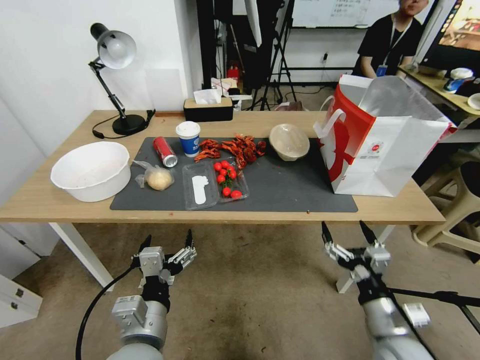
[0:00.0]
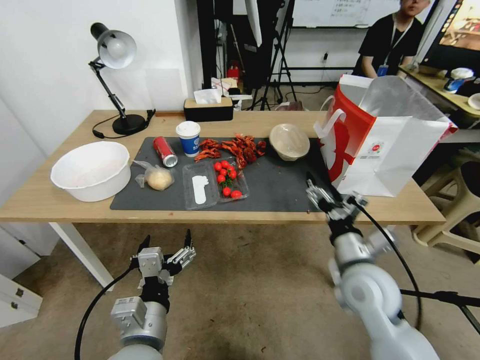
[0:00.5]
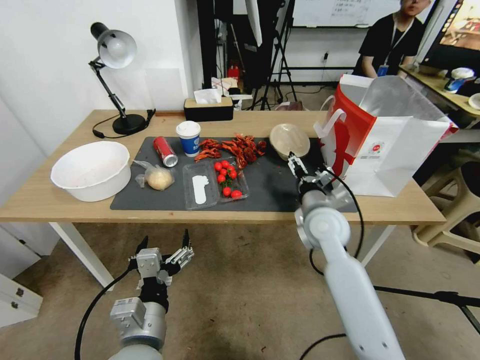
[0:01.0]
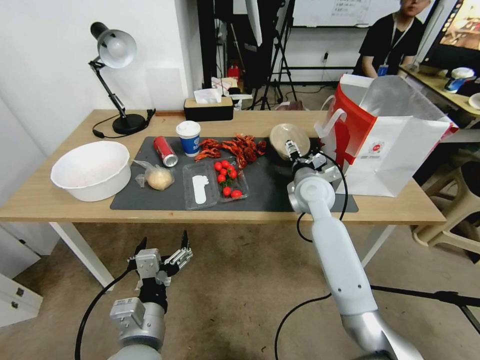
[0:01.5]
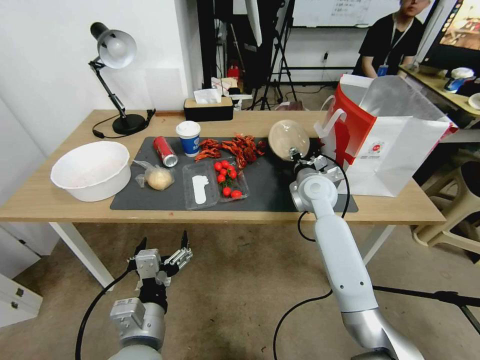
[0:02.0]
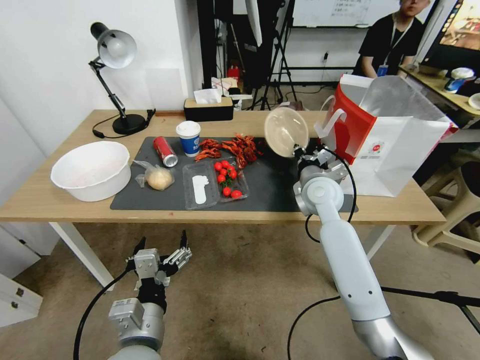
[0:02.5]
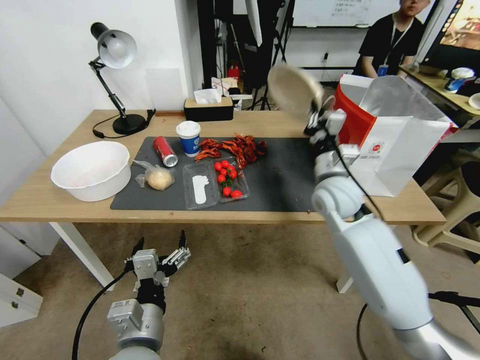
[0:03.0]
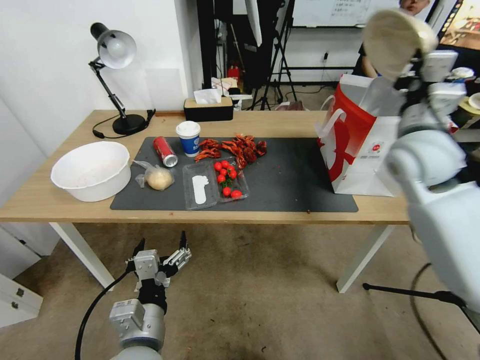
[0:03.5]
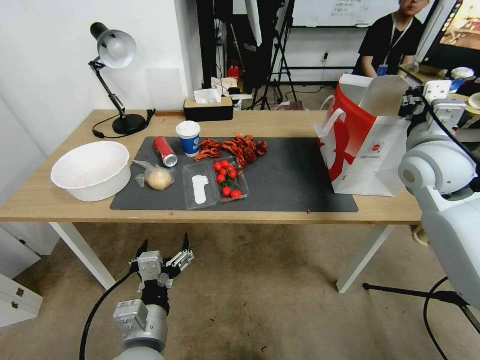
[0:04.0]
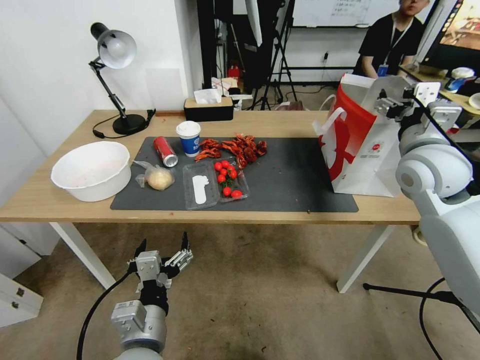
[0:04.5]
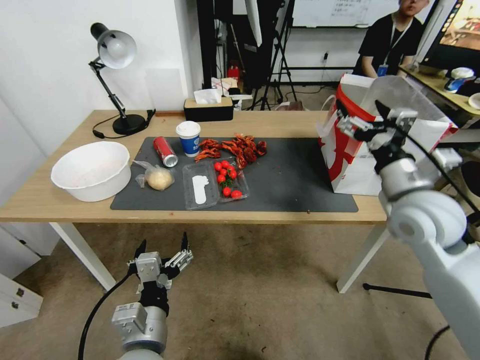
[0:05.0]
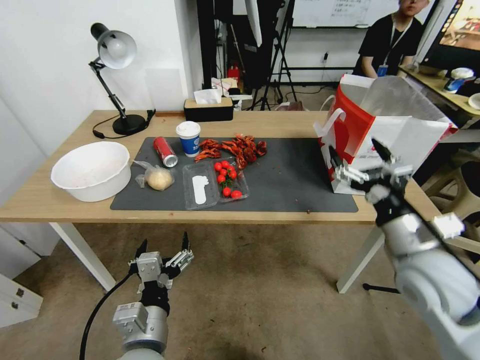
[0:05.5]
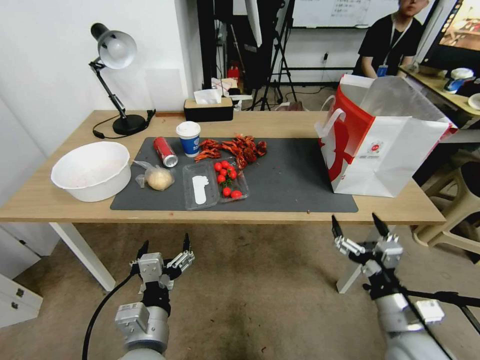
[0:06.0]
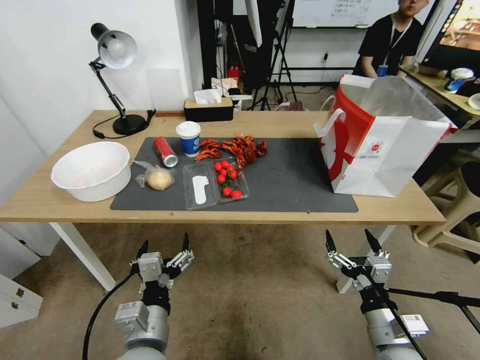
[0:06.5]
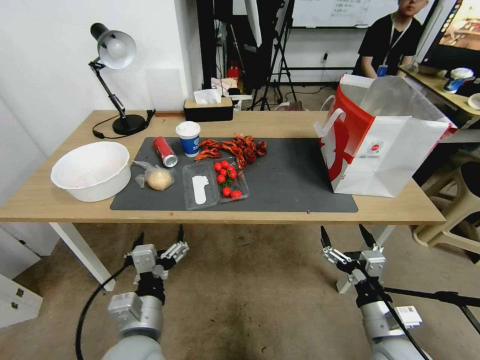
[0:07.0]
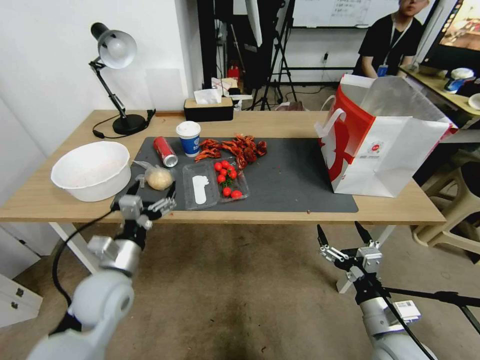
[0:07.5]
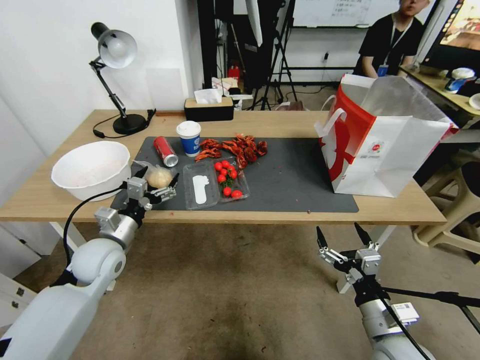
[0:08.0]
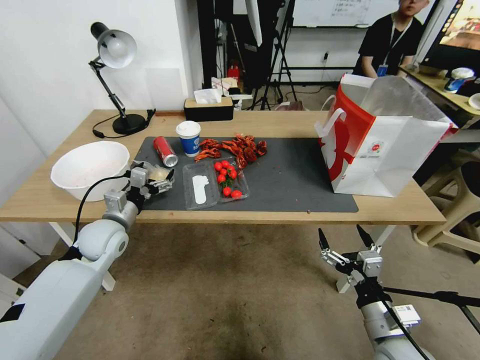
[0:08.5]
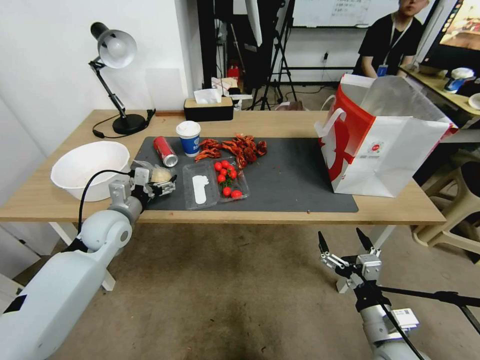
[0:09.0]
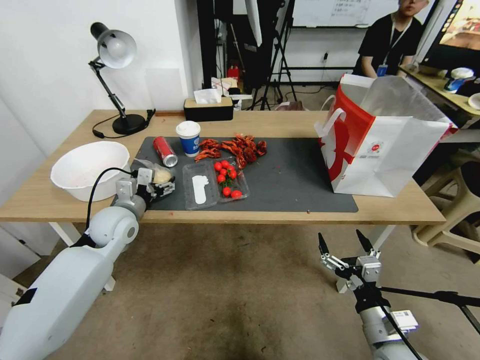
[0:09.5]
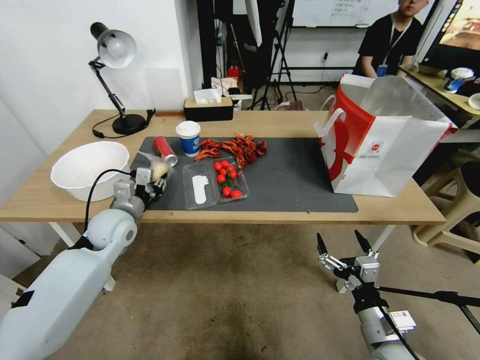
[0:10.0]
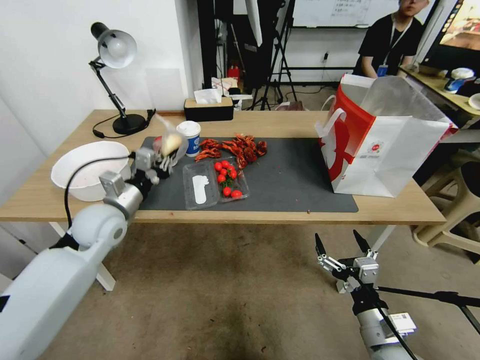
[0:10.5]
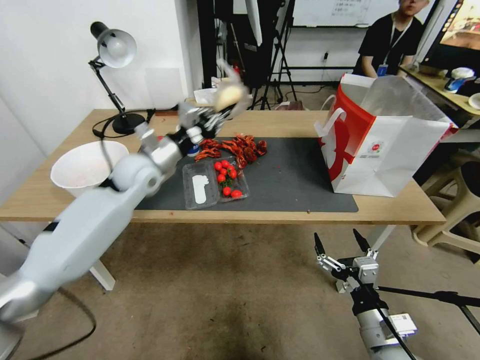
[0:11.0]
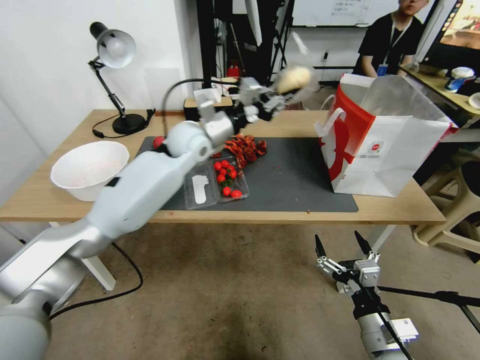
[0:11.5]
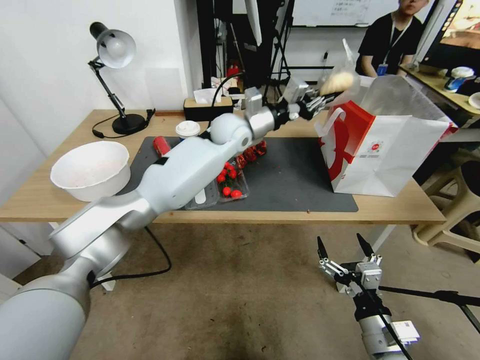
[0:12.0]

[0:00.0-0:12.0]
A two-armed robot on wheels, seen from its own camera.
0:00.0 to 0:02.0: The right gripper heads forward, covering roughly 35 cm, and closes up.
0:02.0 to 0:04.0: The right gripper is displaced upward, to the right and backward by approximately 25 cm.
0:04.0 to 0:06.0: The right gripper shifts some 35 cm downward and backward, and opens its fingers.
0:06.0 to 0:08.0: The left gripper heads forward and to the left, covering some 25 cm.
0:08.0 to 0:10.0: The left gripper moves forward, some 5 cm, and closes its fingers.
0:10.0 to 0:12.0: The left gripper shifts about 35 cm to the right, forward and upward.

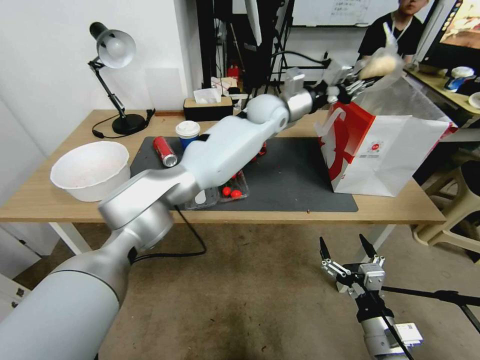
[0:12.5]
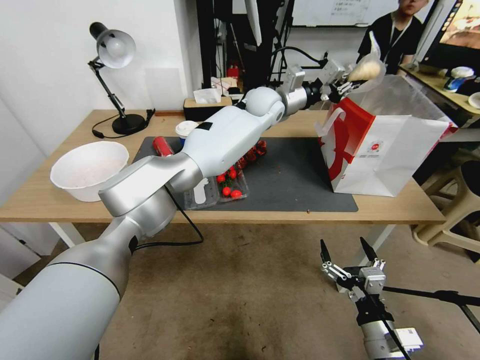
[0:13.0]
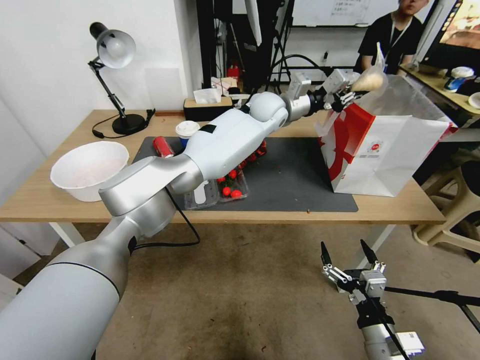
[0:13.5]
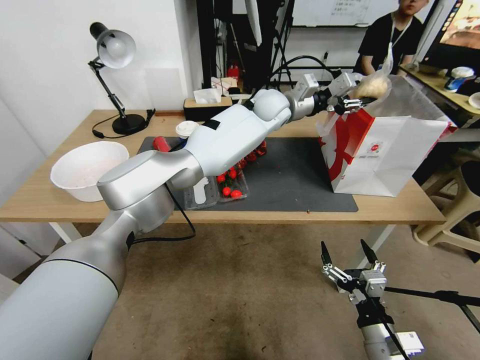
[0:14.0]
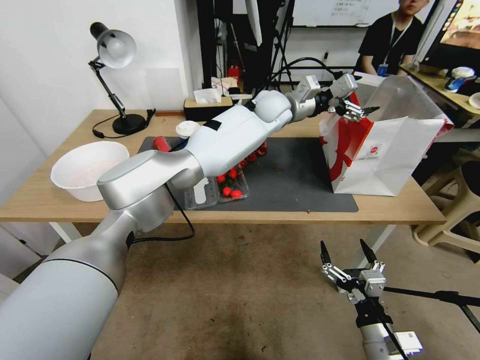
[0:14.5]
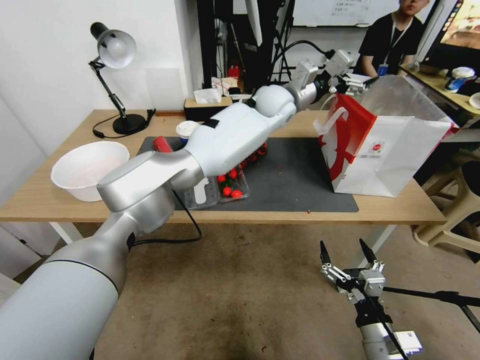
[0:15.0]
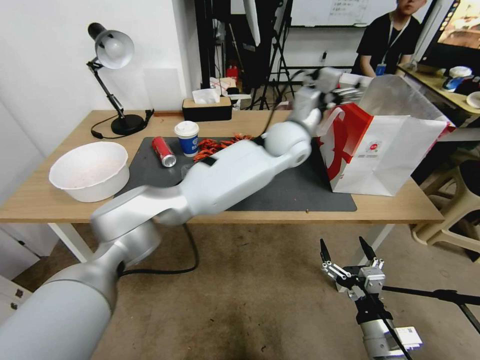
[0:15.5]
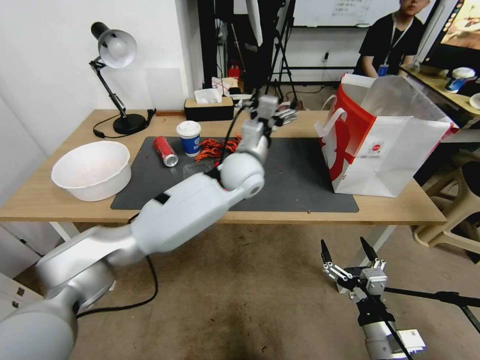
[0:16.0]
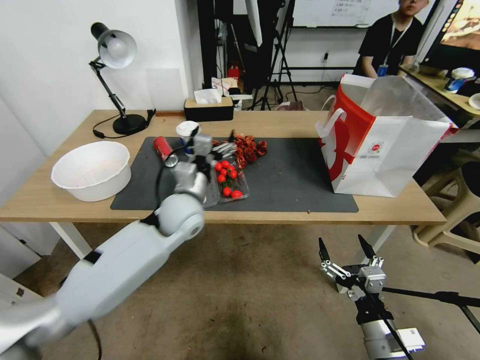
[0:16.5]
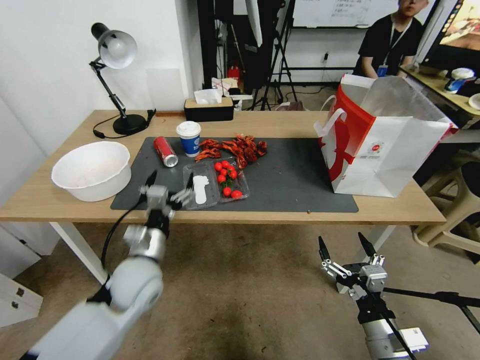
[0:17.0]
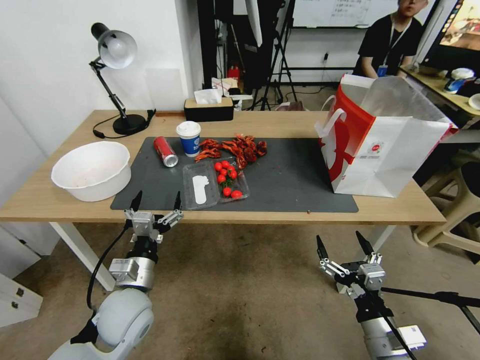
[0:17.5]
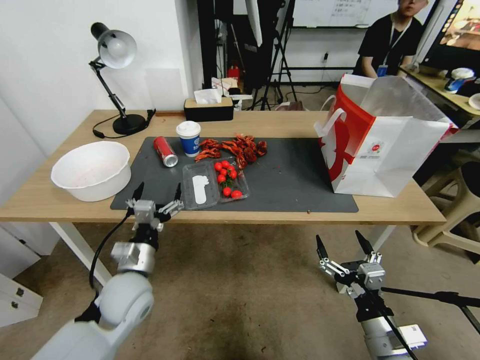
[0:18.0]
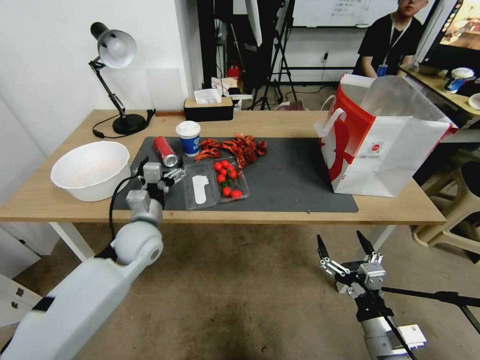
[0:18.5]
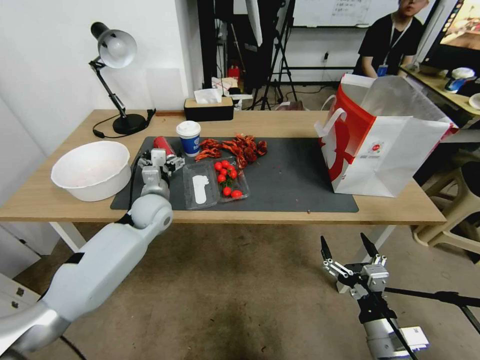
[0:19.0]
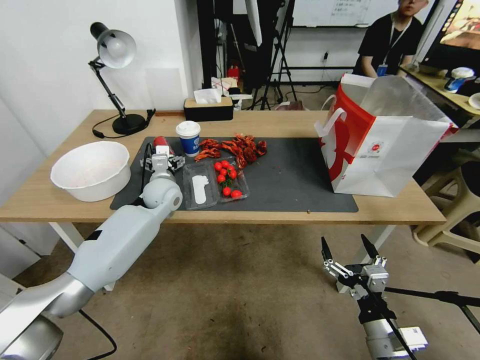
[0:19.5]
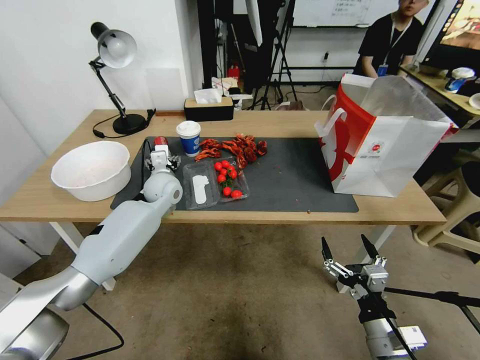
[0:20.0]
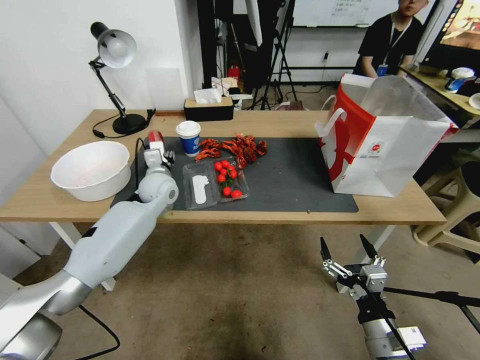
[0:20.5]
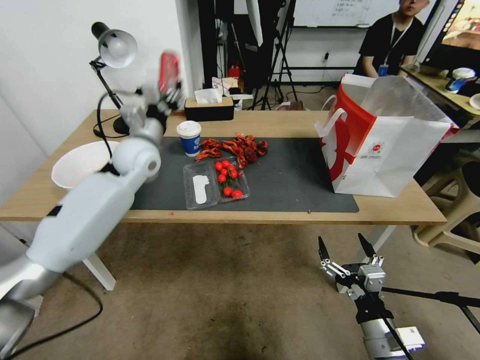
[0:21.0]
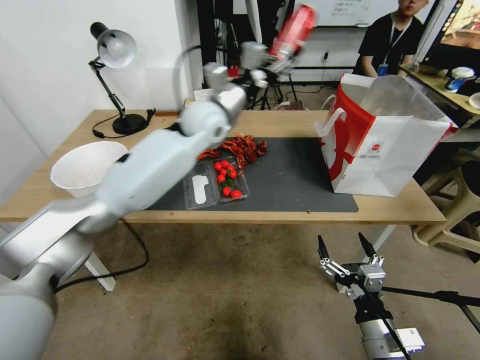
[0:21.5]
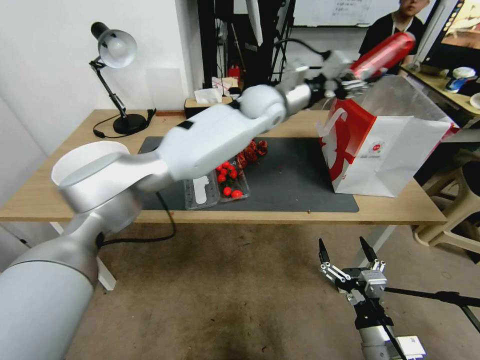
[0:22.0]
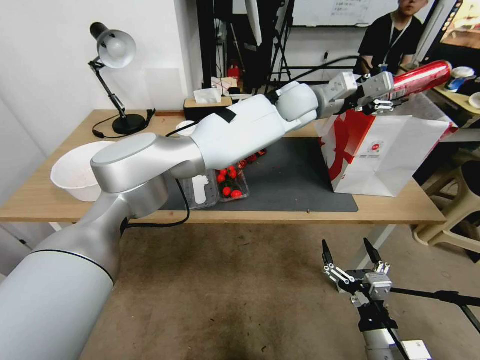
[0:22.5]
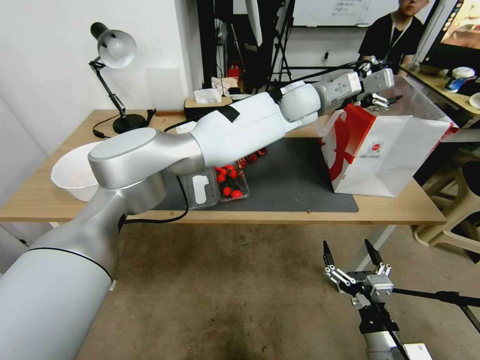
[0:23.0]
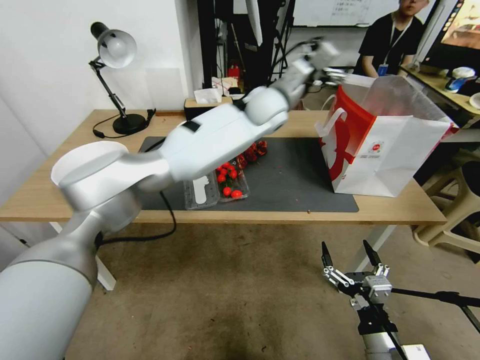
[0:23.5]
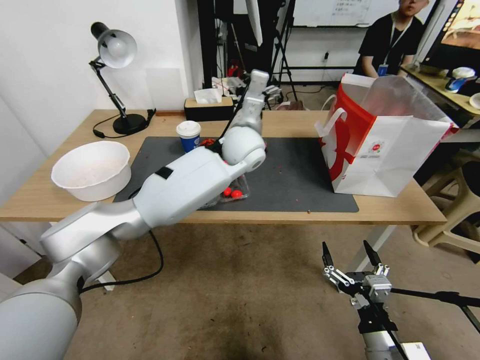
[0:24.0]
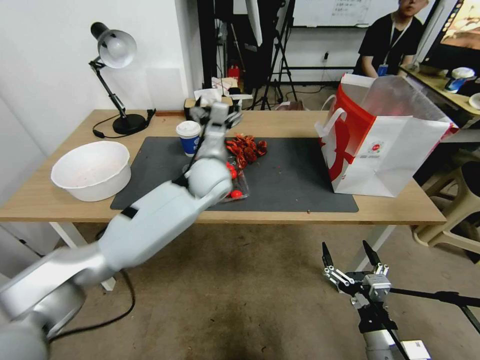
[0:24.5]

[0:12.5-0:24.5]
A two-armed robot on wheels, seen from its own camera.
0:12.5 to 0:14.5: The left gripper travels to the right by about 5 cm, and opens.
0:14.5 to 0:16.5: The left gripper goes some 30 cm backward, to the left and downward.
0:16.5 to 0:18.5: The left gripper goes approximately 15 cm to the left, backward and downward.
0:18.5 to 0:20.5: The left gripper heads forward, covering some 20 cm, and closes its fingers.
0:20.5 to 0:22.5: The left gripper moves to the right and upward, roughly 40 cm.
0:22.5 to 0:24.5: The left gripper is displaced to the left, downward and backward by about 15 cm, and opens its fingers.

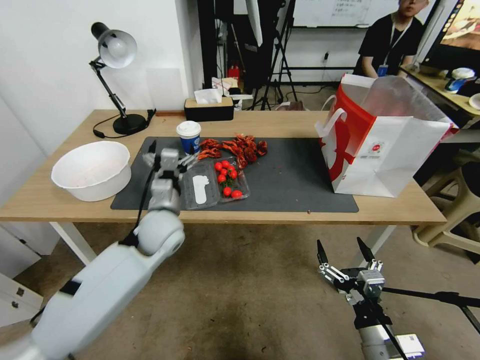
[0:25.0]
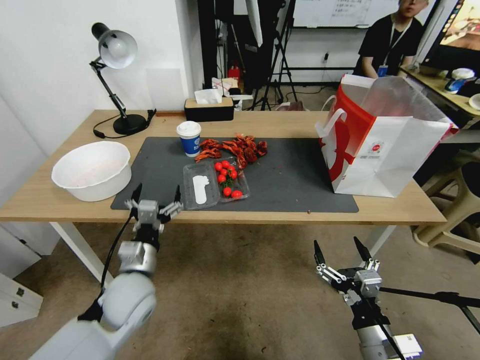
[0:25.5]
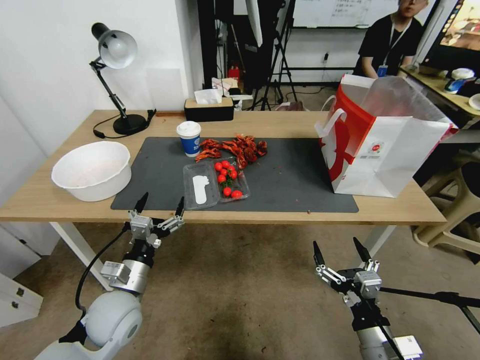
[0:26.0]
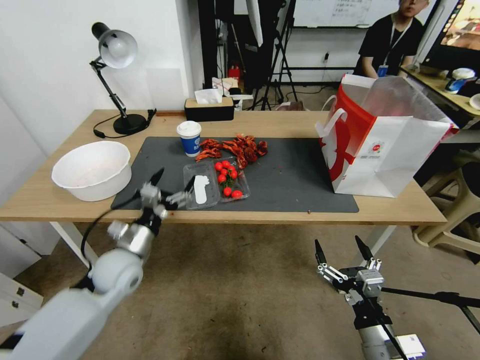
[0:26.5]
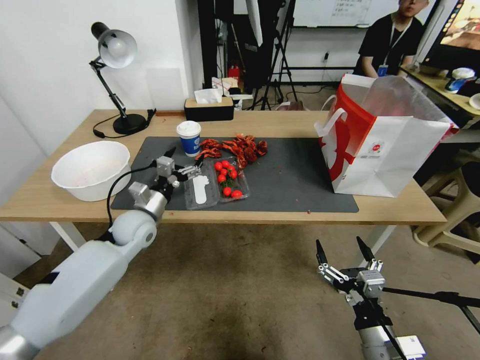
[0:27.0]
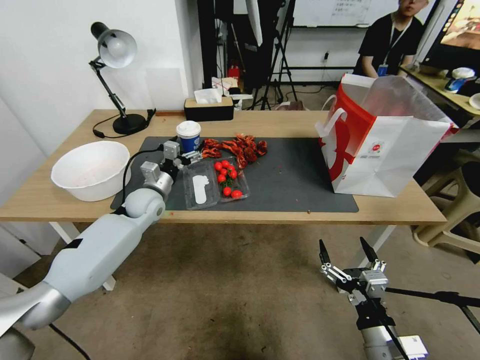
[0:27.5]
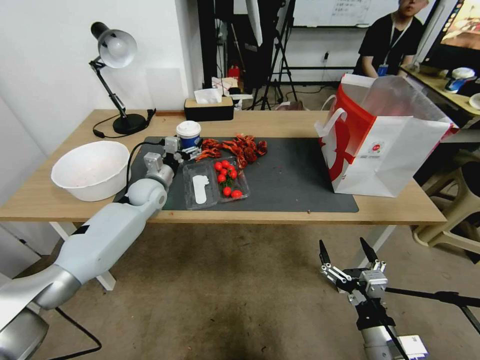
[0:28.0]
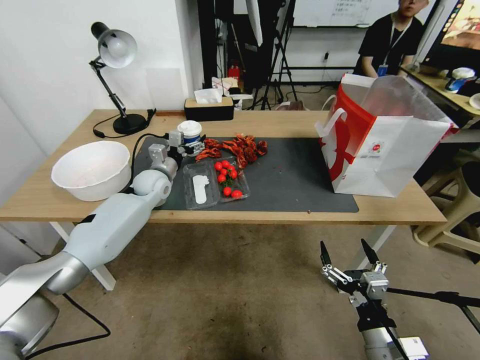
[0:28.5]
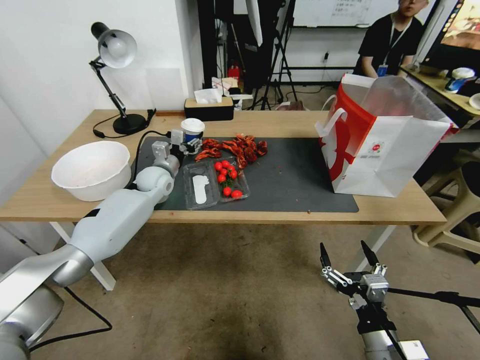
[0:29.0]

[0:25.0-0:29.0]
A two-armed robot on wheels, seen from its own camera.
0:25.0 to 0:27.0: The left gripper moves to the left and downward, roughly 15 cm, and travels backward and back again, approximately 20 cm each way.
0:27.0 to 0:29.0: The left gripper heads forward, covering some 15 cm, and closes up.
